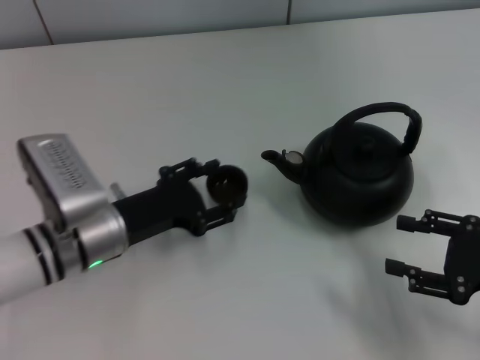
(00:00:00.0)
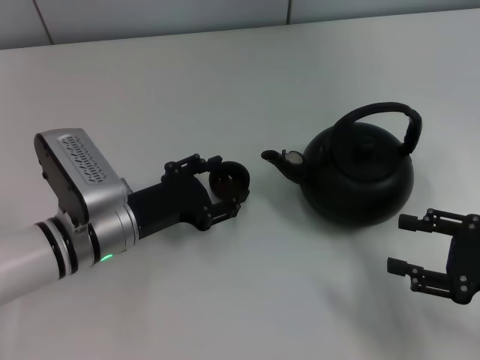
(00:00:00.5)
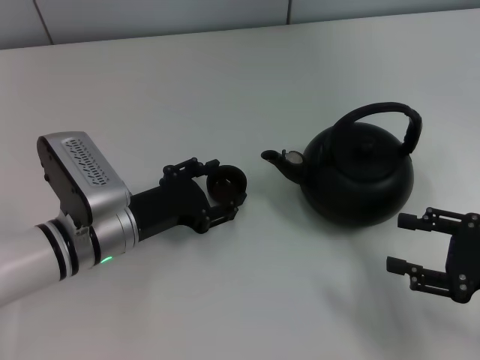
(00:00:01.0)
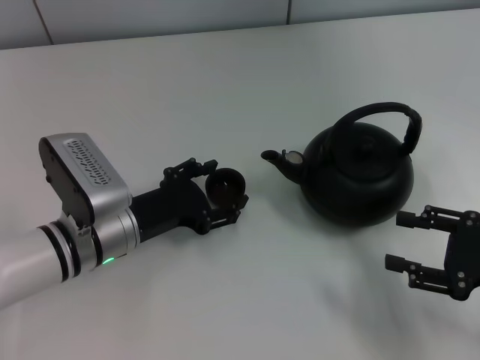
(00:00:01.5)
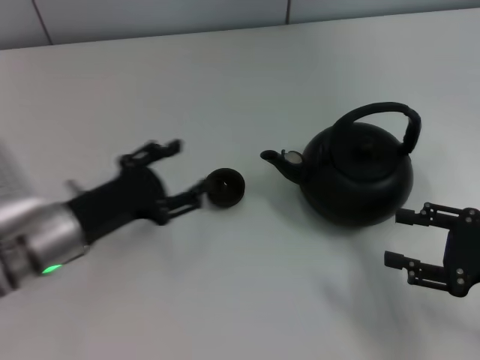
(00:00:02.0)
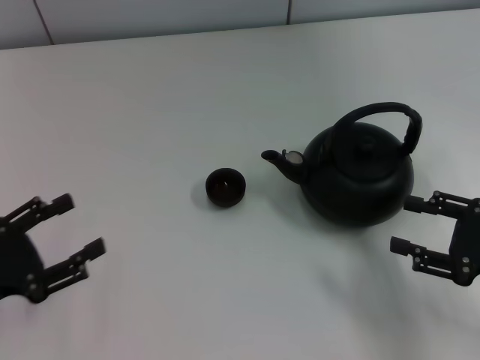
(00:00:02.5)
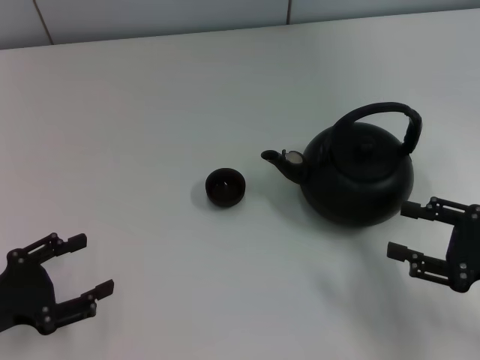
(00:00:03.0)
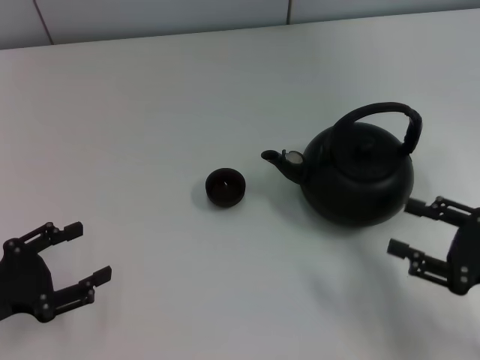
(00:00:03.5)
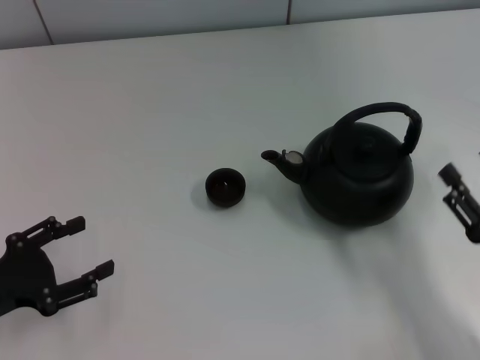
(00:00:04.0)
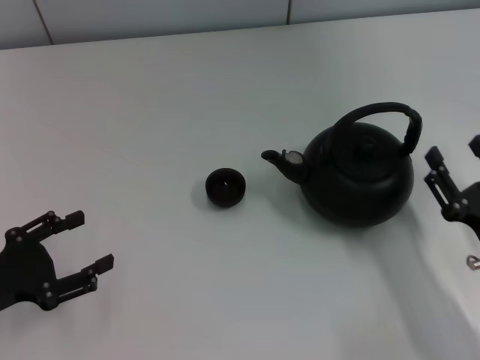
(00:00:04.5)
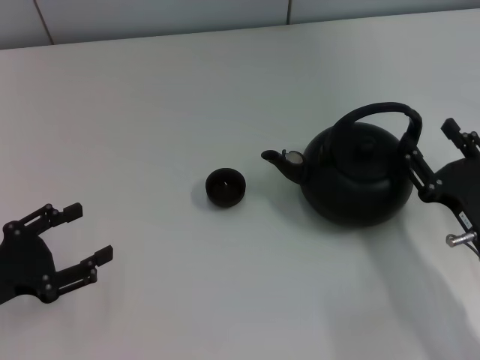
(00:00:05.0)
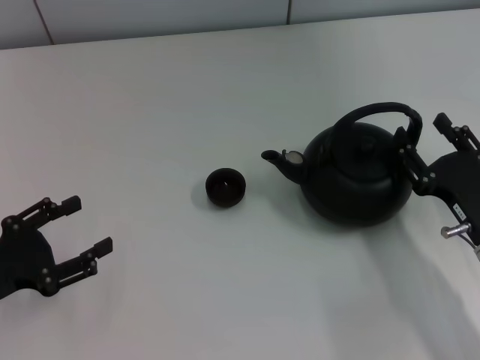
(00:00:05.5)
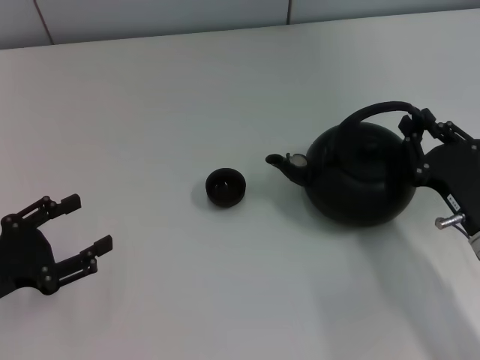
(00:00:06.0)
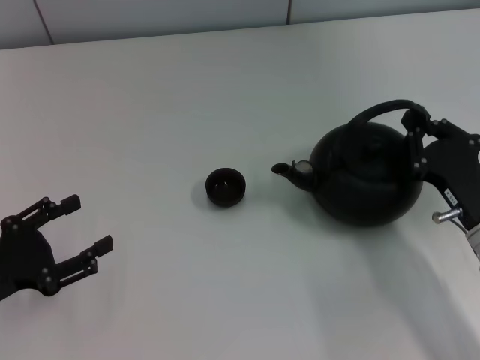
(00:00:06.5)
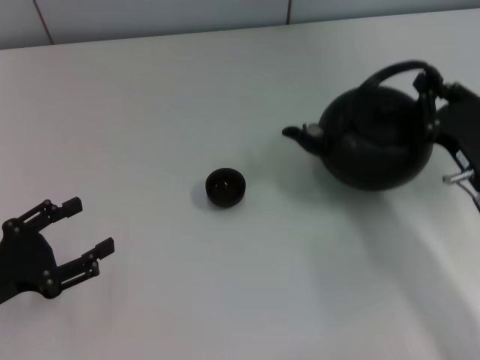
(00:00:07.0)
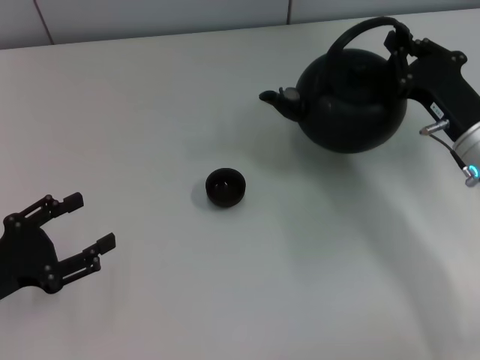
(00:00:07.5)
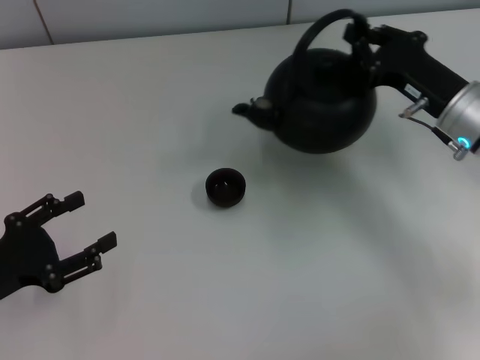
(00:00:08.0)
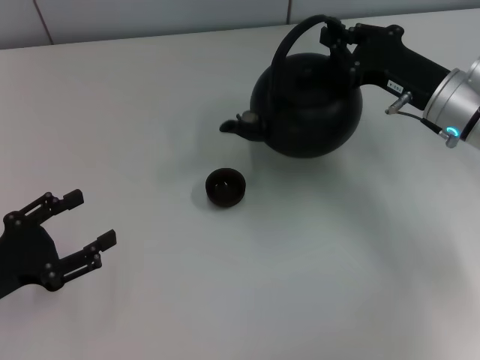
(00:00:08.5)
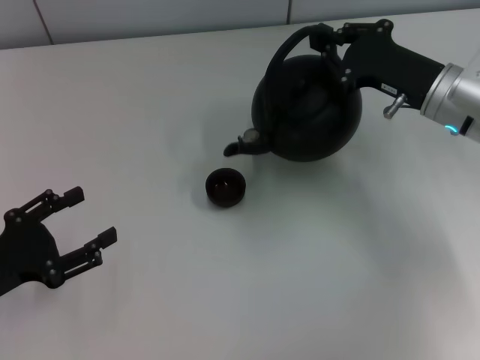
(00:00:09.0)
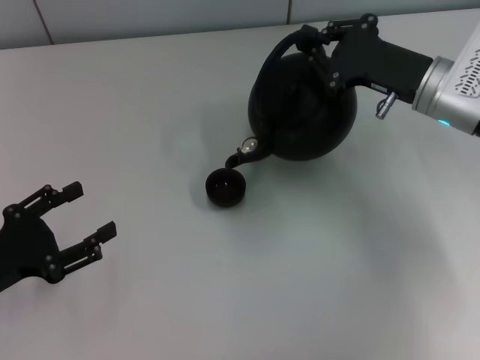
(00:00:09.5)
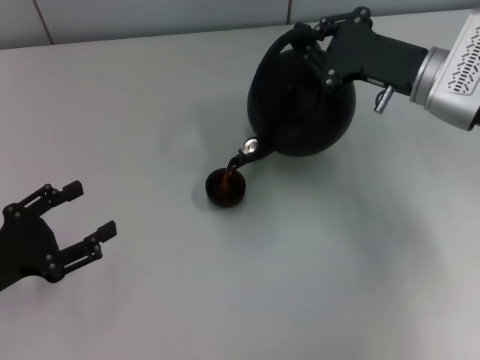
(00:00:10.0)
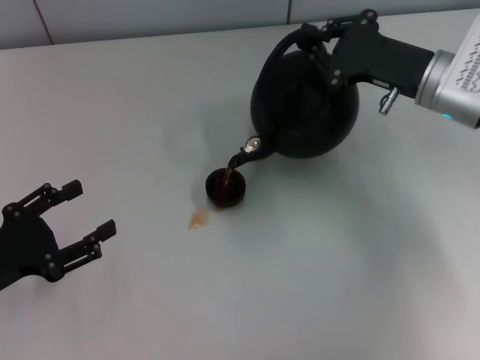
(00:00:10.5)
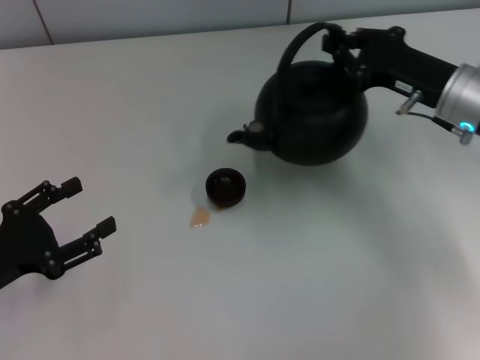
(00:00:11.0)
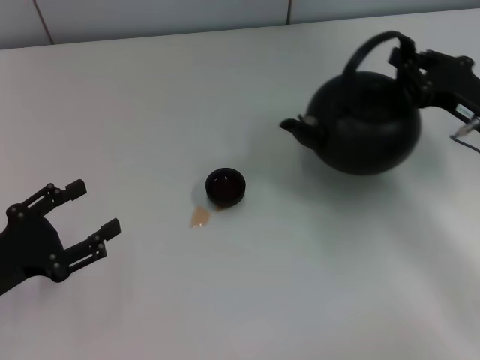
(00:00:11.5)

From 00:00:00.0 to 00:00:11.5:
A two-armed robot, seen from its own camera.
Task of the whole recording: Grasp the handle of the teapot with one hand and pour tea into the teacup.
Step, from 00:00:00.5 to 00:00:02.0: Place the teacup in the center of view with the left gripper.
Step, from 00:00:02.5 to 00:00:07.0: Pick up the teapot with the right gripper.
From 00:00:00.0 to 00:00:02.0: The left gripper opens up.
From 00:00:02.0 to 00:00:04.0: The right gripper heads backward, covering approximately 5 cm. Meanwhile the left gripper shifts some 15 cm to the left and backward.
From 00:00:04.0 to 00:00:06.0: The right gripper travels forward by approximately 10 cm, and closes up.
From 00:00:06.0 to 00:00:07.5: The right gripper heads forward, covering roughly 10 cm, and closes up.
From 00:00:07.5 to 00:00:09.5: The right gripper is displaced forward by about 5 cm.
From 00:00:09.5 to 00:00:11.5: The right gripper moves to the right and backward, about 10 cm.

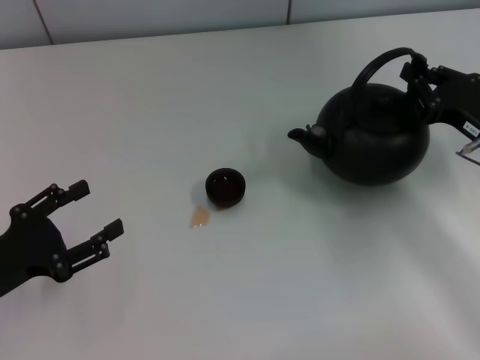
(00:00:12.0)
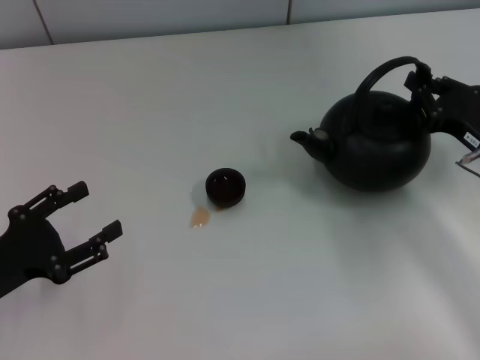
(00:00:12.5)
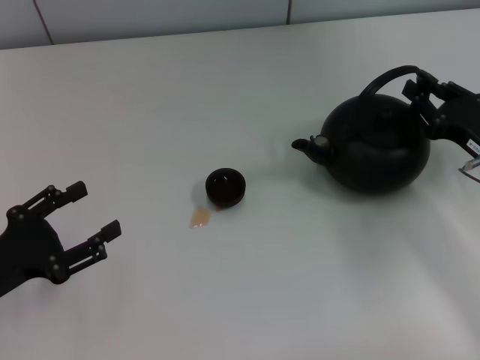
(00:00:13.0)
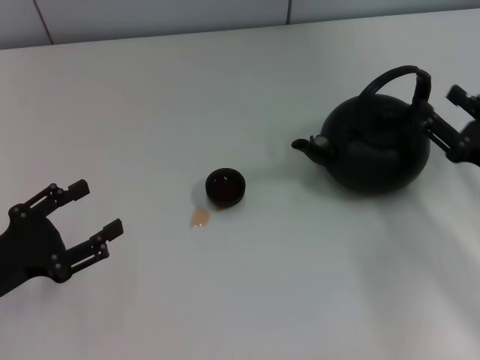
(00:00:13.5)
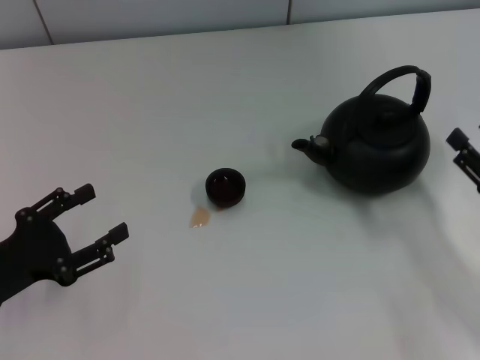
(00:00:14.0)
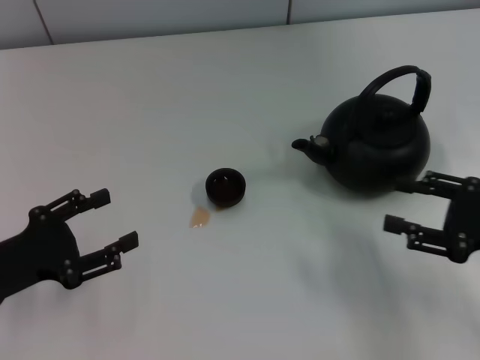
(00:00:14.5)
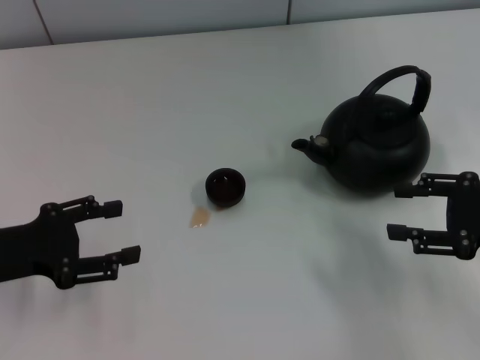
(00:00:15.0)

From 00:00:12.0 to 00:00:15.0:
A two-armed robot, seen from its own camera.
Task of the whole recording: Grasp the handle of the teapot with one hand and pour tea into the teacup.
Step, from 00:00:12.0 to 00:00:13.5: Put down the teapot with the right gripper.
From 00:00:12.0 to 00:00:13.5: The right gripper goes roughly 5 cm backward, and opens its fingers.
From 00:00:13.5 to 00:00:15.0: The left gripper ends up roughly 5 cm from where it was; the right gripper travels upward by approximately 5 cm.

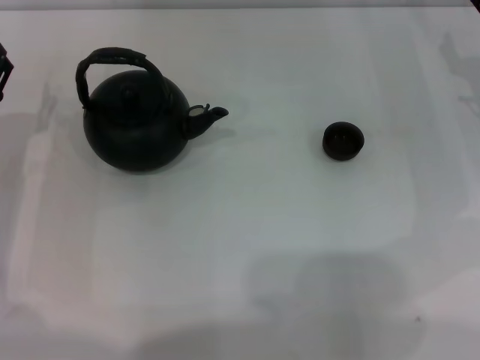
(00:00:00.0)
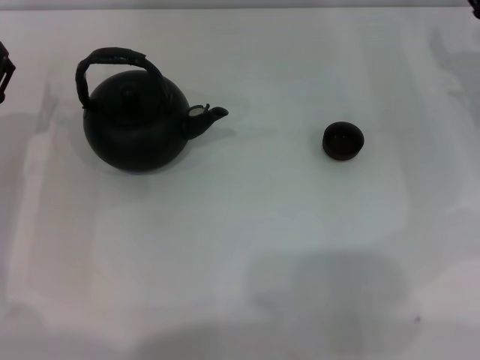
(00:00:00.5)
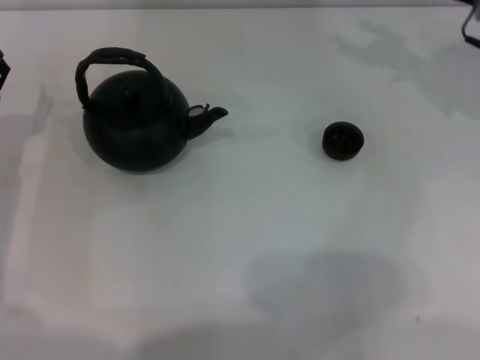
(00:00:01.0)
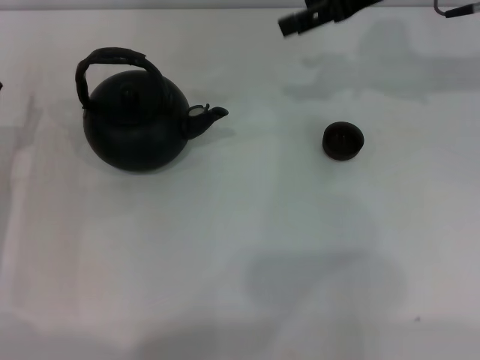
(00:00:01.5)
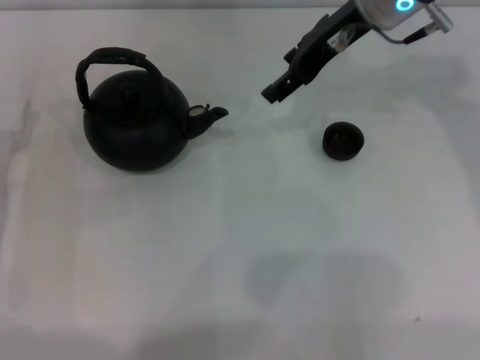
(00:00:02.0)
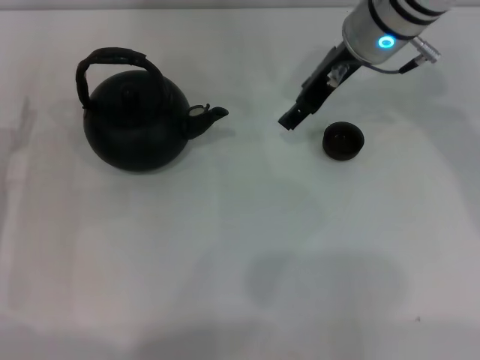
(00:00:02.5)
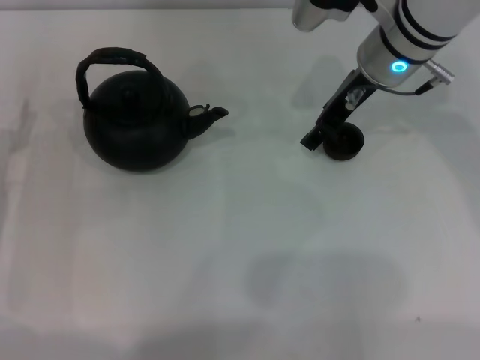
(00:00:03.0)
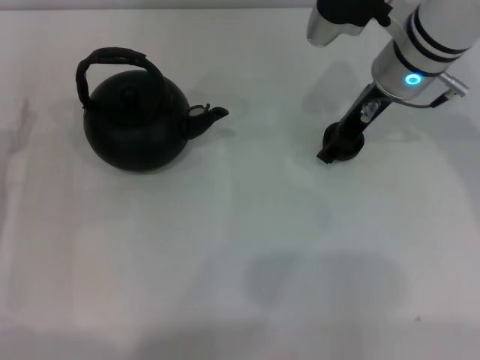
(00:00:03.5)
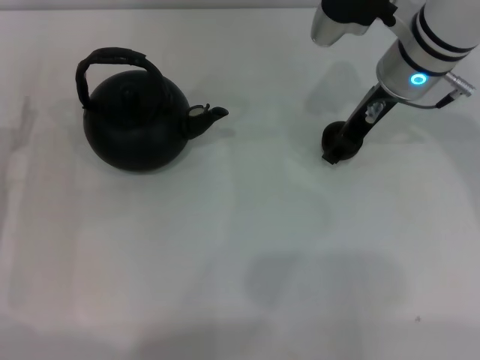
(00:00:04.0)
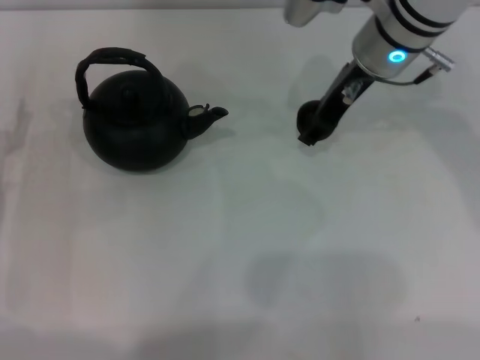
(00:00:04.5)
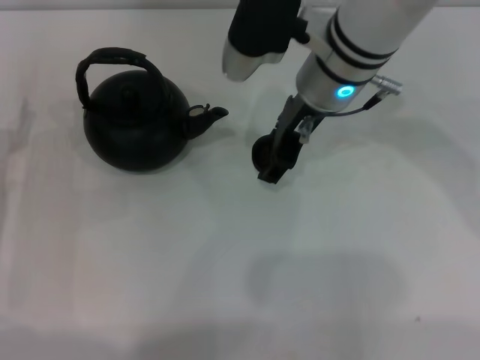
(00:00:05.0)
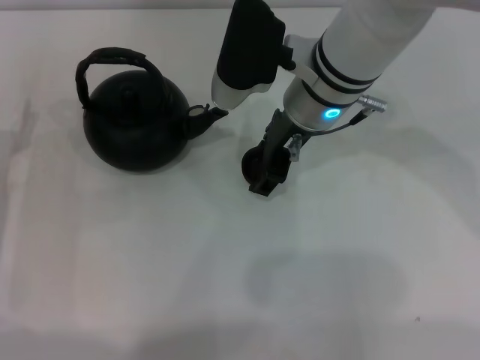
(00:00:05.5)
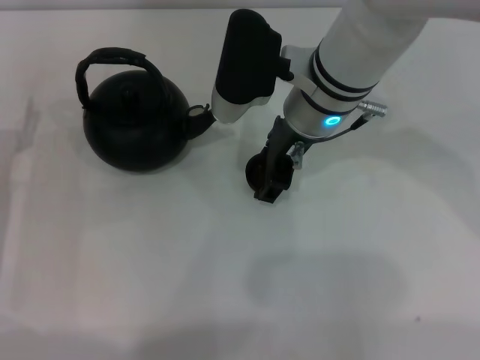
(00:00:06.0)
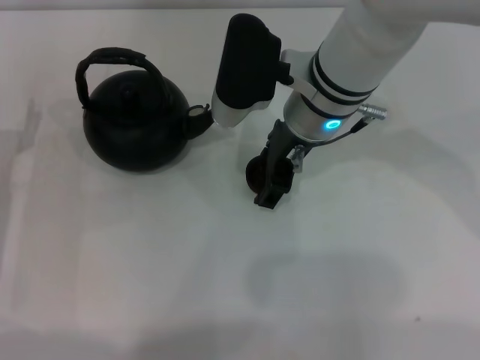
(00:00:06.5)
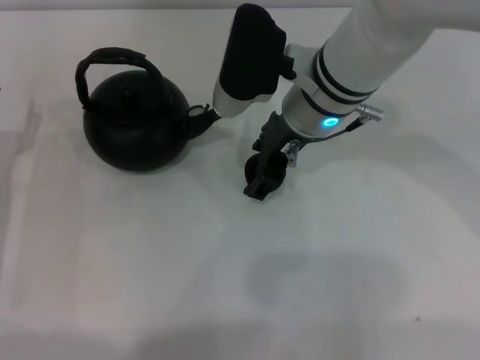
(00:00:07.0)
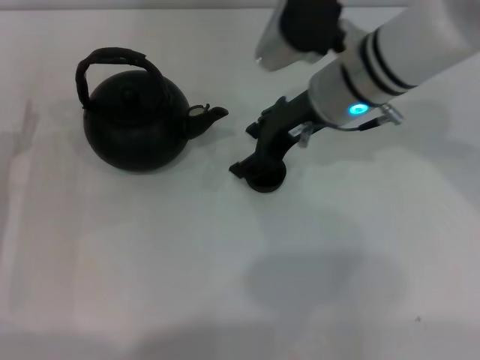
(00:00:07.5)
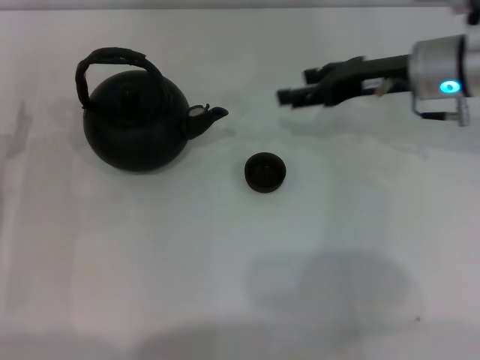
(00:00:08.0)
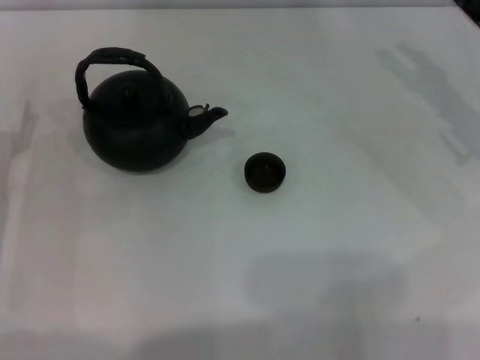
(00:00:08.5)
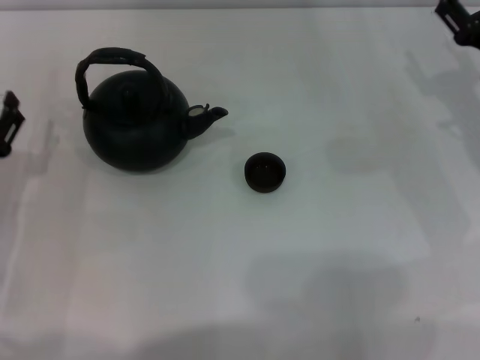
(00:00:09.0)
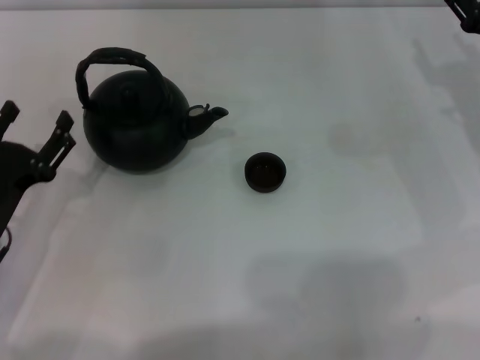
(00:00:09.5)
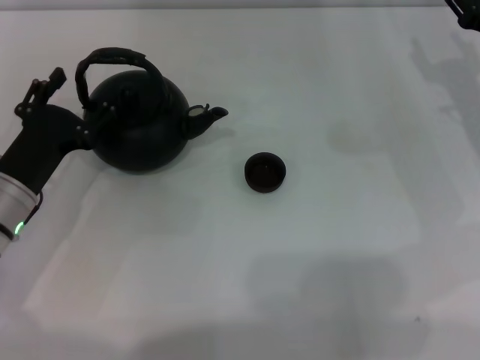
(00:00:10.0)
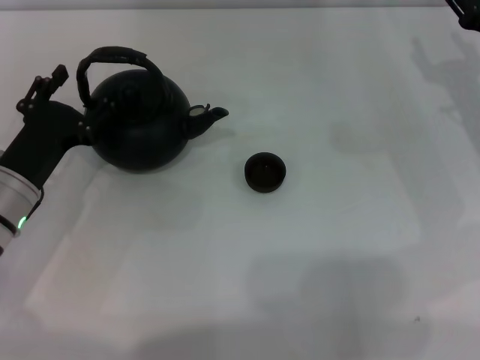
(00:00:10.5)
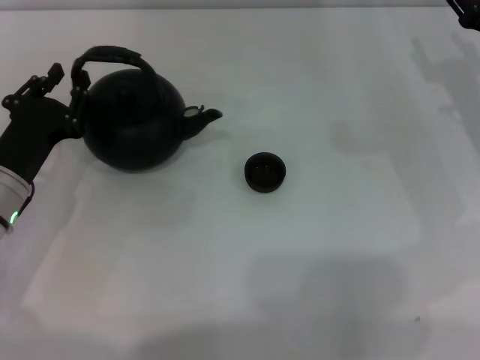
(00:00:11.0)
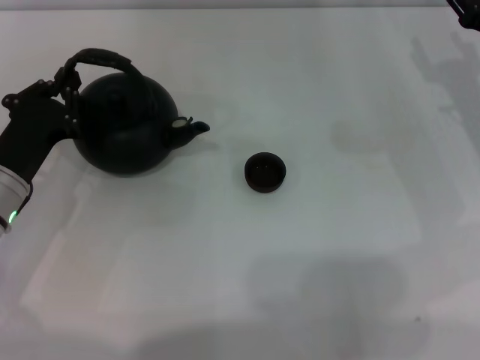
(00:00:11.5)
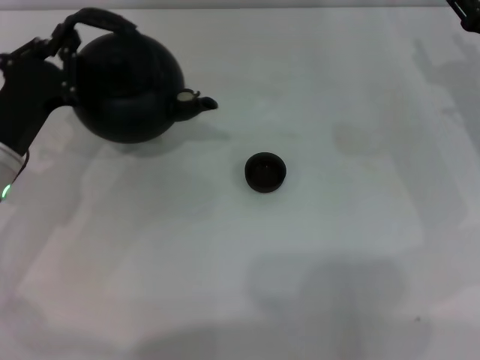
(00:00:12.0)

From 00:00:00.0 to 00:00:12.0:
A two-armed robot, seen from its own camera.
Task of the whole recording: Grasp the handle of the teapot with one hand and pour tea into the teacup.
Step, from 00:00:00.0 to 00:00:04.0: Pick up the teacup with the right gripper.
Step, from 00:00:05.0 to 00:00:07.5: Place the teacup in the center of view with the right gripper.
Step, from 00:00:08.0 to 00:00:11.5: Pick up the teapot with the left gripper.
From 00:00:00.0 to 00:00:02.0: The right gripper heads to the left and upward, covering approximately 25 cm.
From 00:00:02.0 to 00:00:04.0: The right gripper moves downward, roughly 5 cm, and closes up.
From 00:00:04.0 to 00:00:06.0: The right gripper moves to the left, roughly 10 cm.
From 00:00:06.0 to 00:00:08.0: The right gripper is displaced to the right by roughly 15 cm, and opens.
From 00:00:08.0 to 00:00:10.0: The left gripper is displaced to the right by some 5 cm. The right gripper moves to the right and downward, approximately 10 cm.
From 00:00:10.0 to 00:00:12.0: The left gripper closes up.
